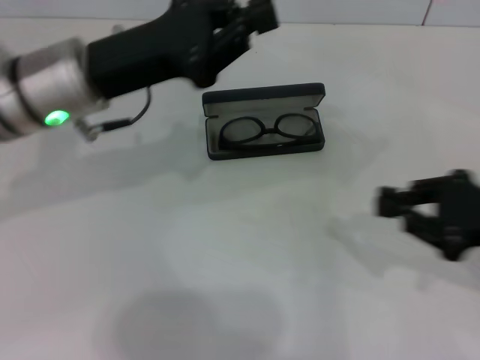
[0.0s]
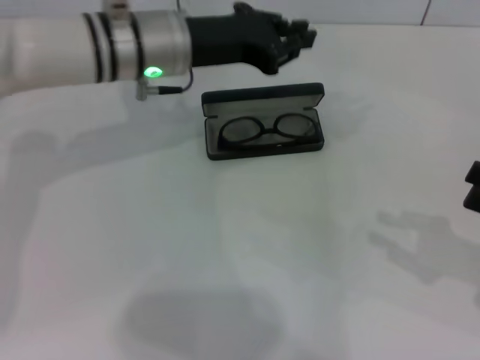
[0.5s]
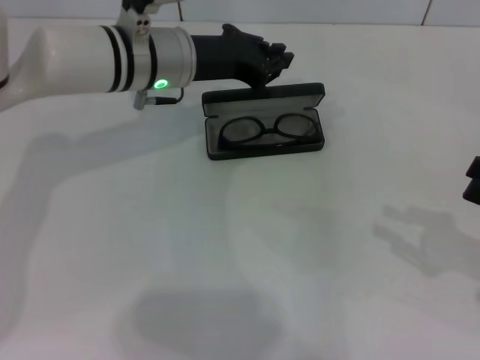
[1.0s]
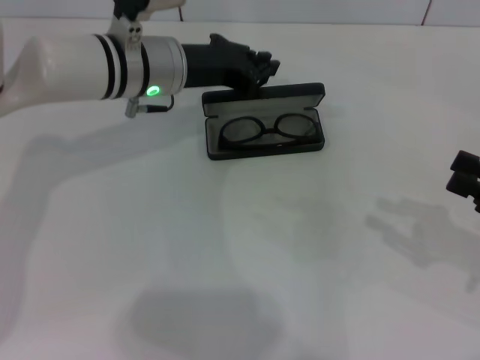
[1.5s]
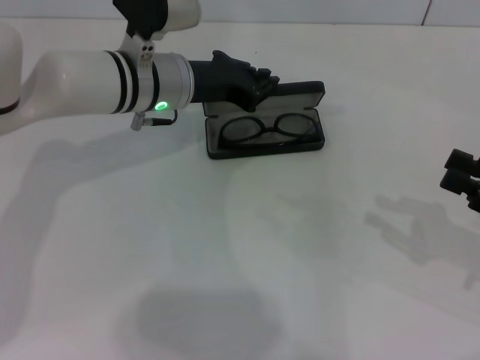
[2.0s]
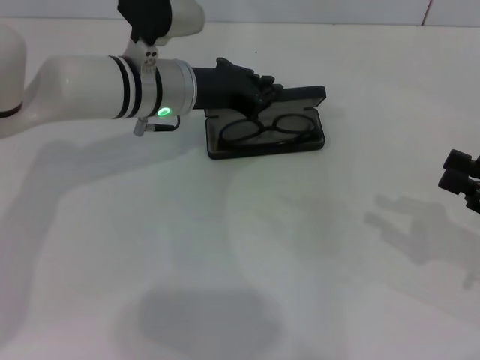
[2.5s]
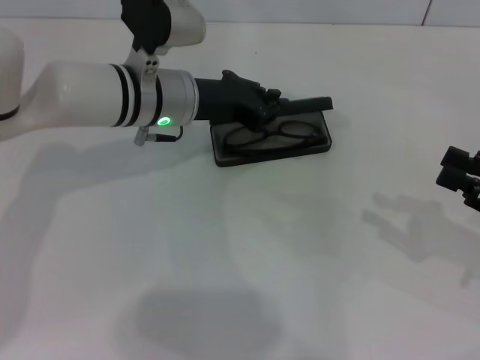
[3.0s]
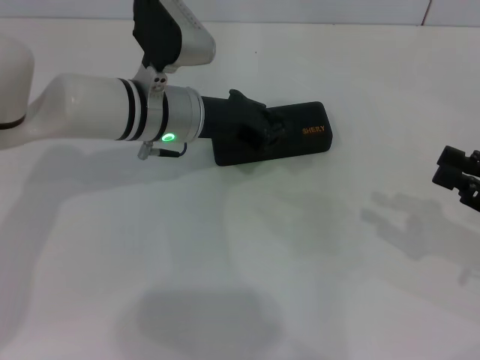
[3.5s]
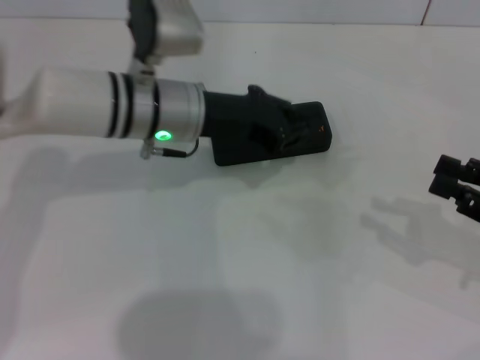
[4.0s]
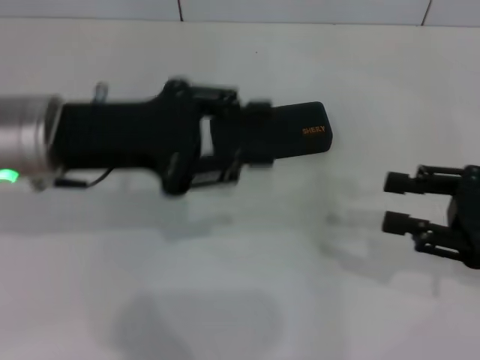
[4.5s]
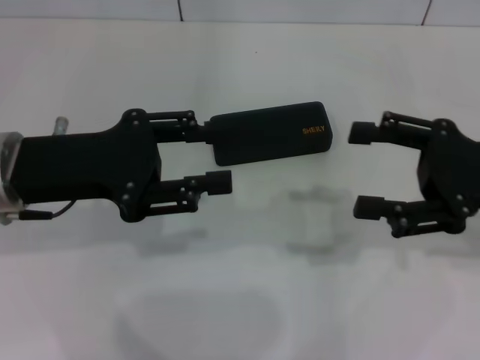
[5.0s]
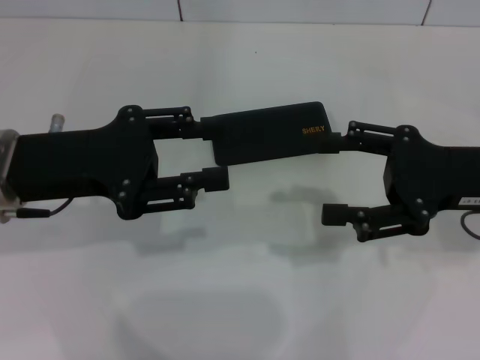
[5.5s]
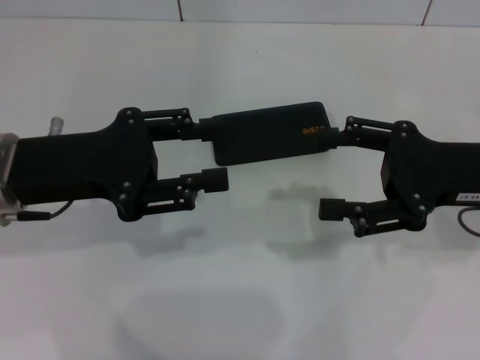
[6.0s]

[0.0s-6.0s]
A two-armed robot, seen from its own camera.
Step, 0.0s to 3.0s: Close the glasses case with your left hand.
0.0s to 2.0s: The right gripper goes some 5 cm to the right. The left gripper is displaced forward and to the right by approximately 10 cm.
2.0s to 4.0s: The grippers stay close to where they were, moving slightly.
4.0s to 6.0s: The left gripper heads to the left and backward, covering approximately 15 cm, and opens, while the right gripper is displaced to the left, forward and upward by some 10 cm, and opens up.

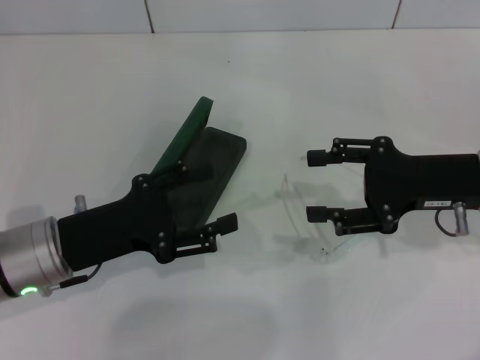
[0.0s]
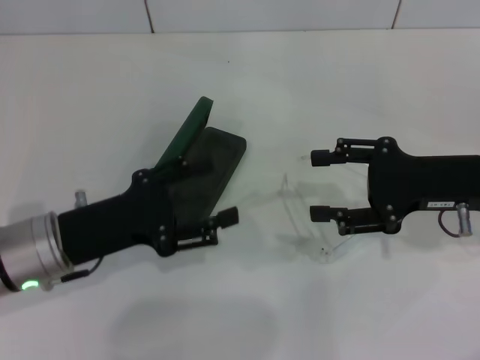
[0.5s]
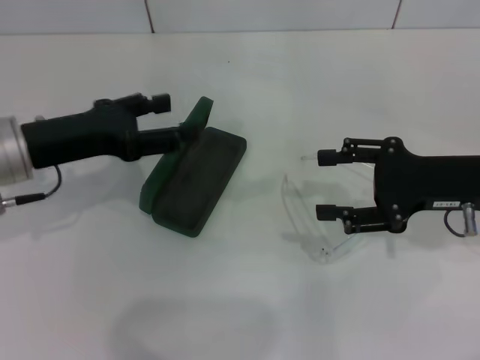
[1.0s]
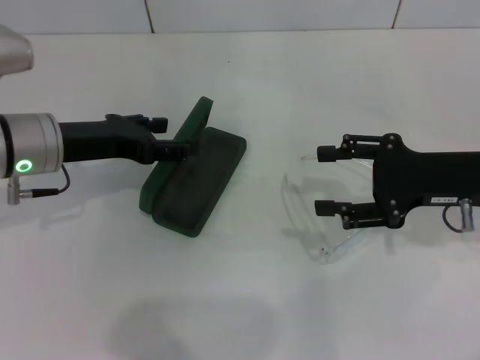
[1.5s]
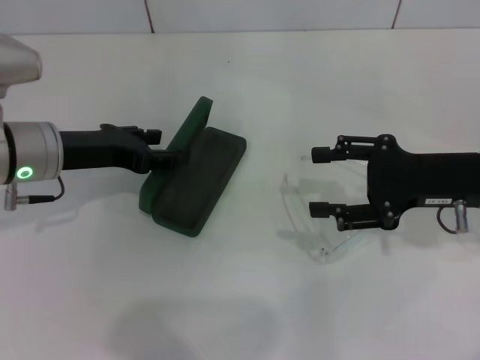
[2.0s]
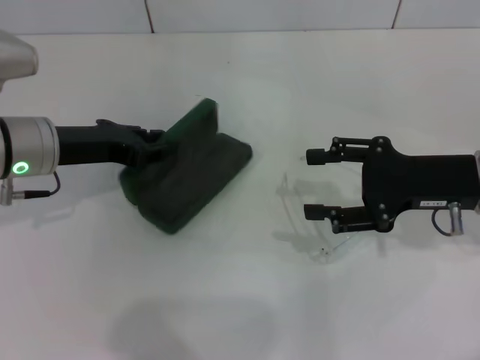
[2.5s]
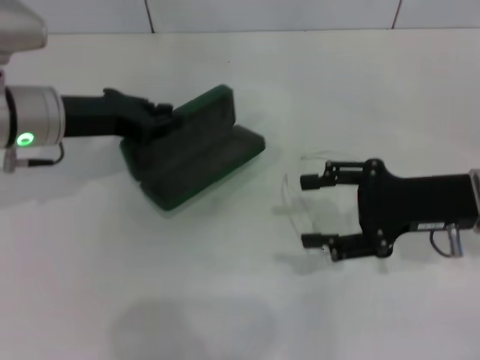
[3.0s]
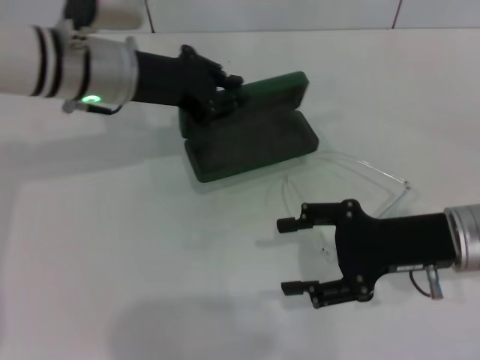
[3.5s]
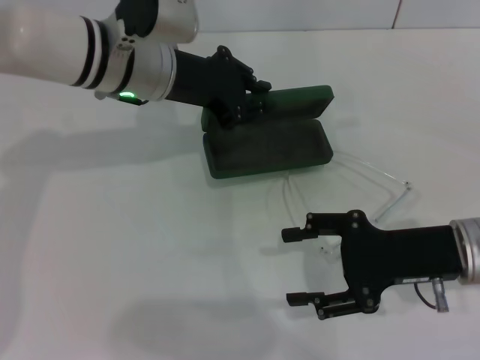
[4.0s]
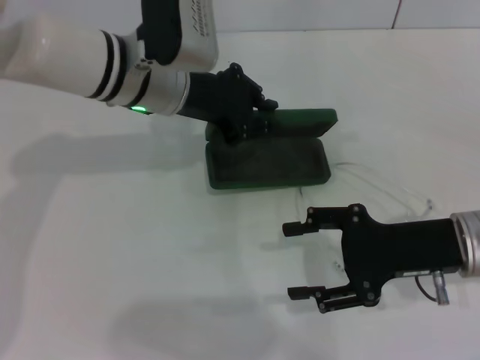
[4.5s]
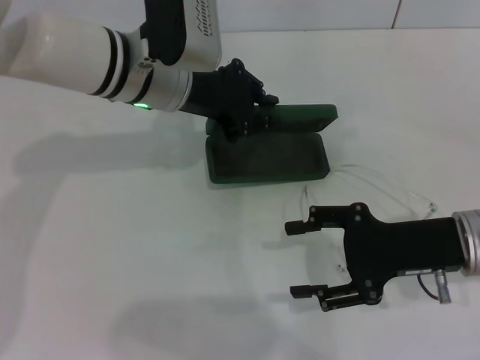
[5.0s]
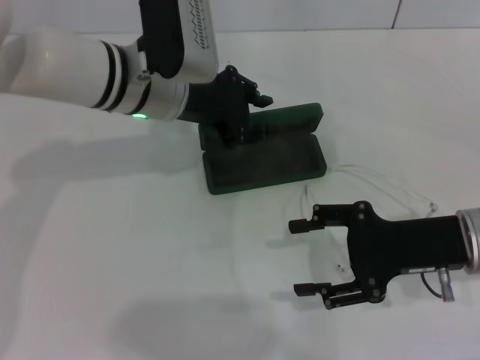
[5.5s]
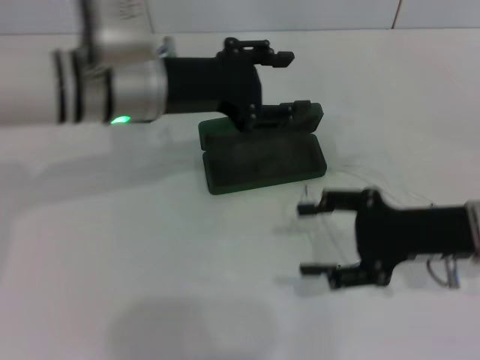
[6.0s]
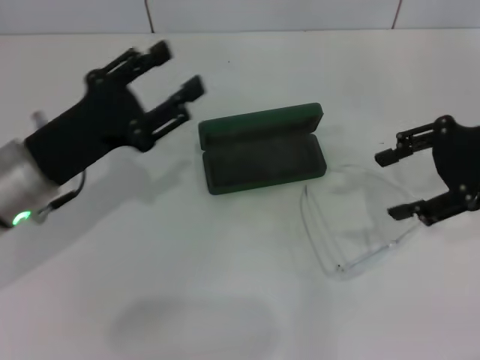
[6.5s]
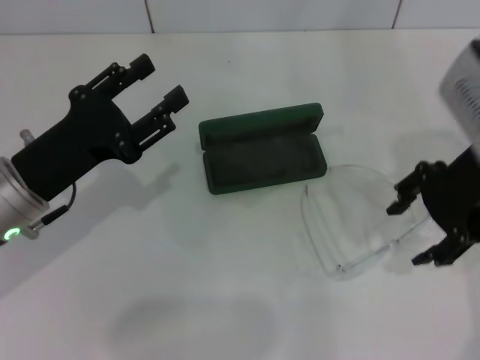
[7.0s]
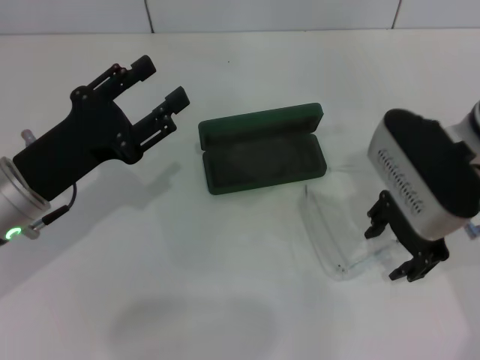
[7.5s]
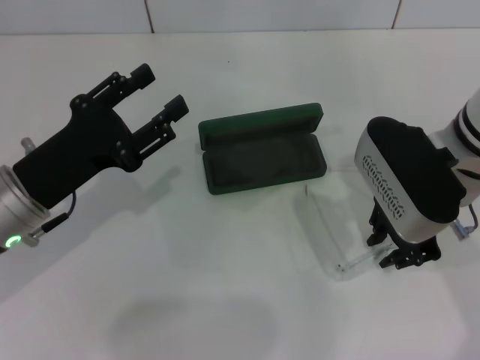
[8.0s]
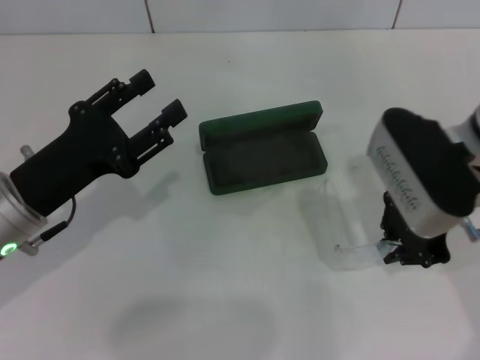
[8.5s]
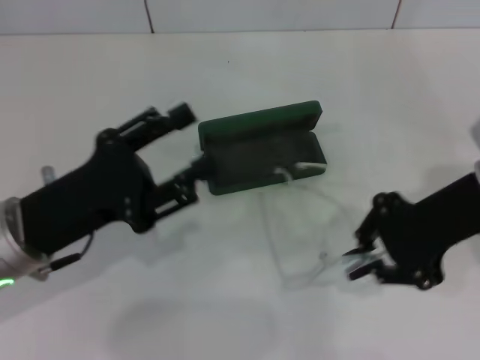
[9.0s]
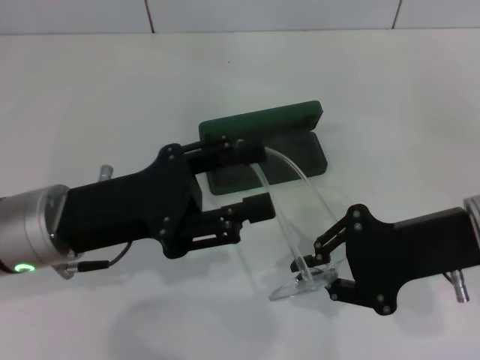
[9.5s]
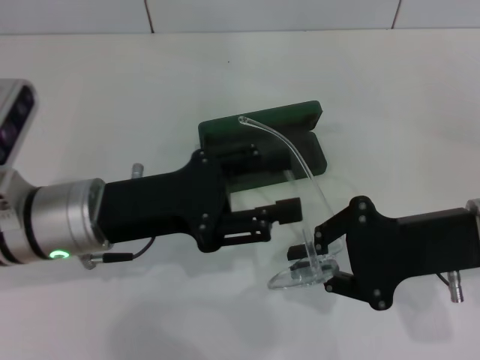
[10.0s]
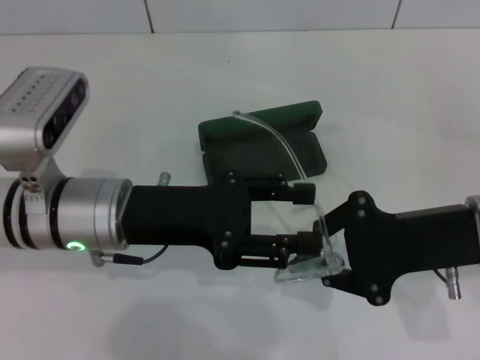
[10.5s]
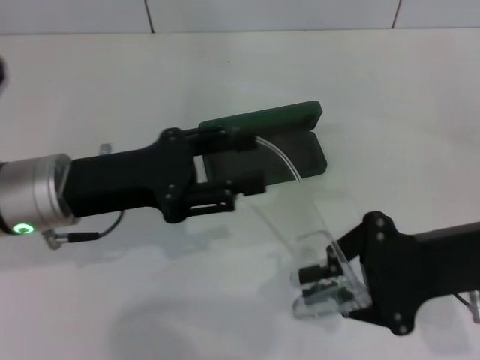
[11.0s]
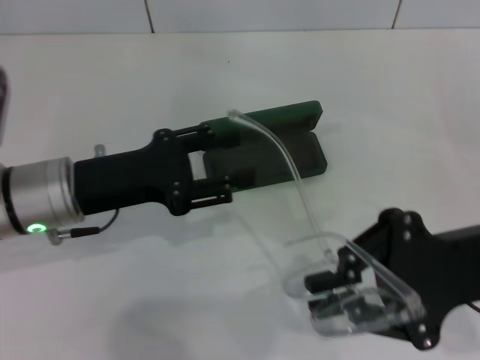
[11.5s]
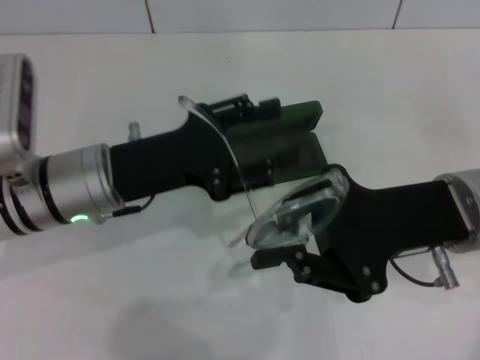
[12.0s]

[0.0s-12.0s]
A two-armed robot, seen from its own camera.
Step, 0.0s to 2.5s: Grab the glasses case with your left hand.
Step, 3.0s to 5.5s: Place the glasses case in the center of the table with your left hand.
Step, 6.0s to 8.0s: Grab the eyeglass frame with your right hand.
0.0s to 2.0s: The left gripper travels forward by approximately 10 cm.
2.0s to 4.0s: The right gripper moves approximately 5 cm. The left gripper is displaced to the right, forward and upward by approximately 15 cm, and closes its fingers.
4.0s to 6.0s: The left gripper opens up.
6.0s to 8.0s: The left gripper travels to the left, backward and downward by some 15 cm, while the right gripper goes roughly 10 cm to the left and upward, and closes its fingers.
8.0s to 10.0s: The left gripper moves to the right, roughly 5 cm. The right gripper travels backward and to the right by roughly 10 cm, and closes up.

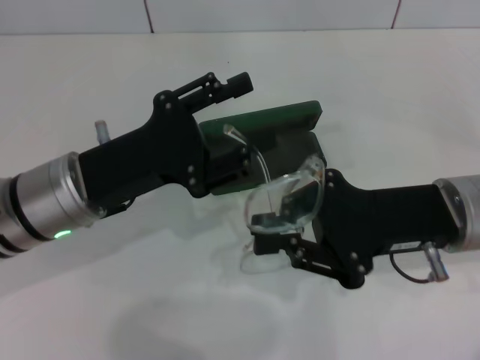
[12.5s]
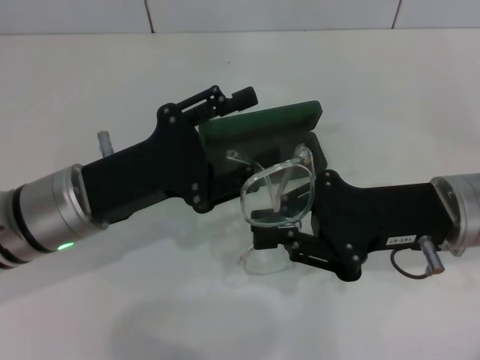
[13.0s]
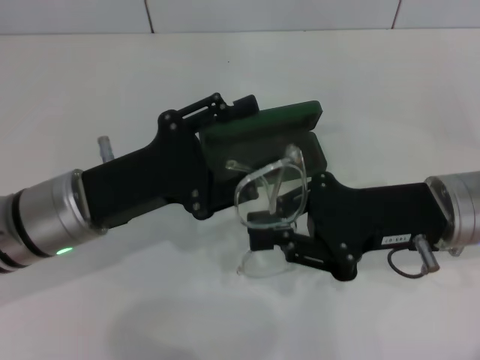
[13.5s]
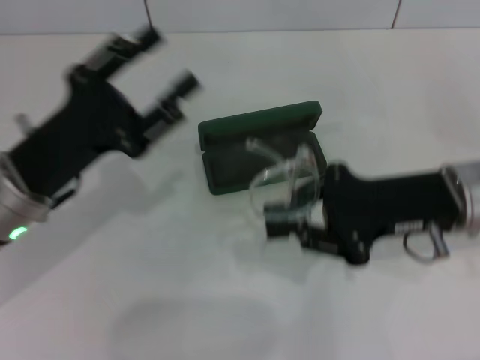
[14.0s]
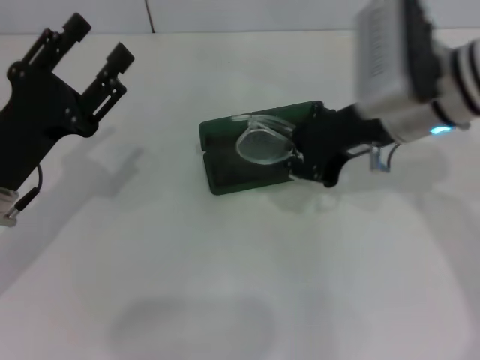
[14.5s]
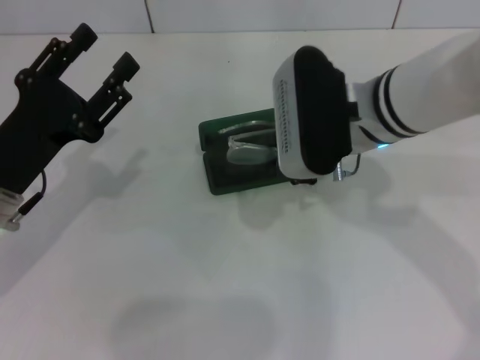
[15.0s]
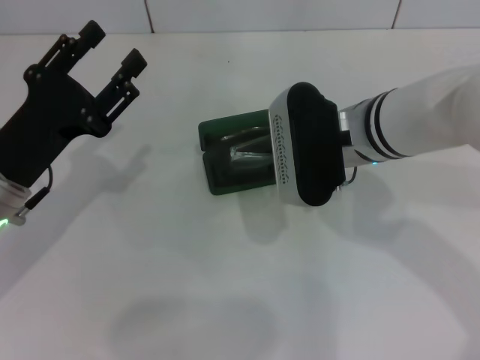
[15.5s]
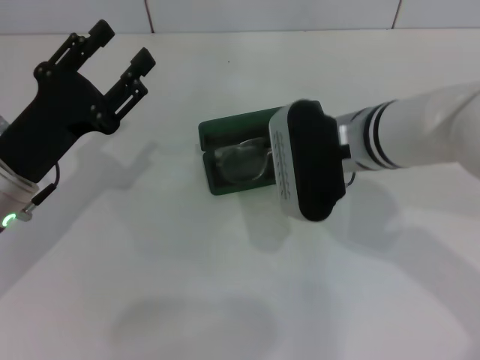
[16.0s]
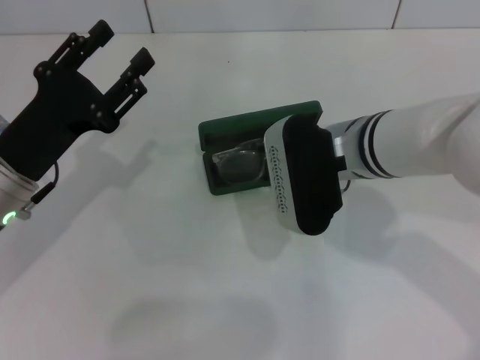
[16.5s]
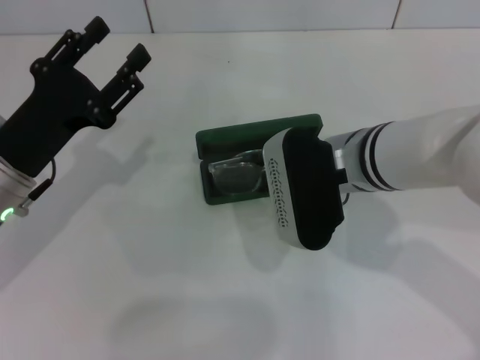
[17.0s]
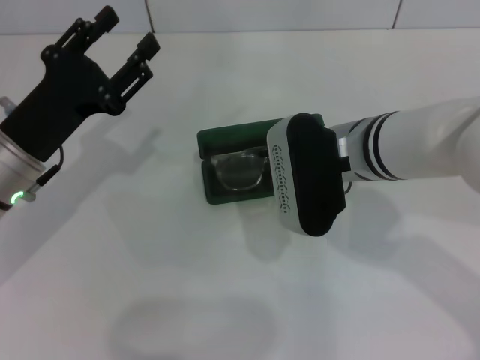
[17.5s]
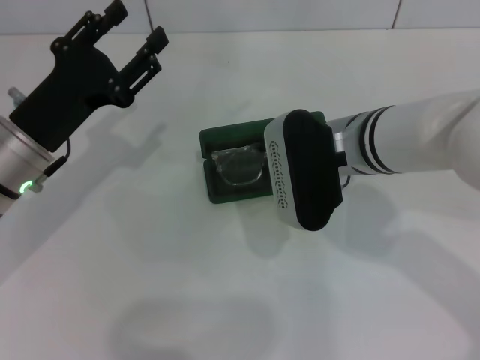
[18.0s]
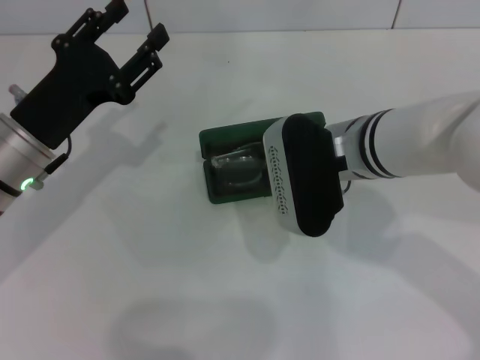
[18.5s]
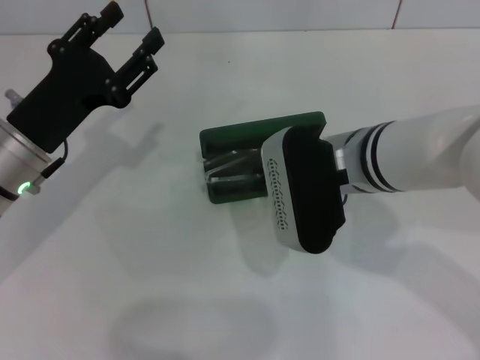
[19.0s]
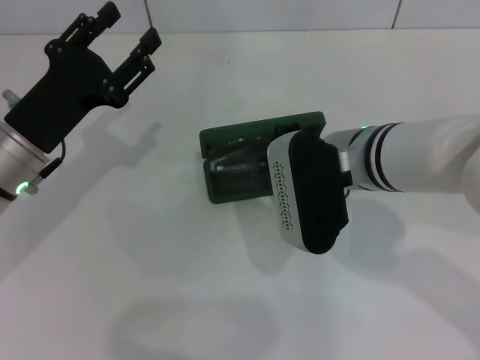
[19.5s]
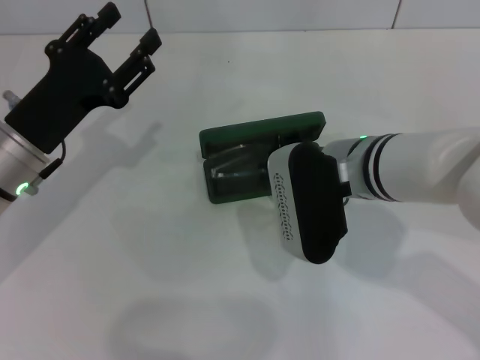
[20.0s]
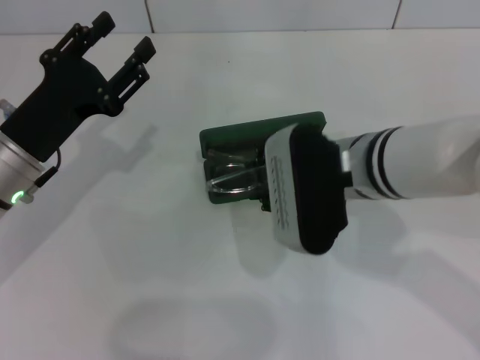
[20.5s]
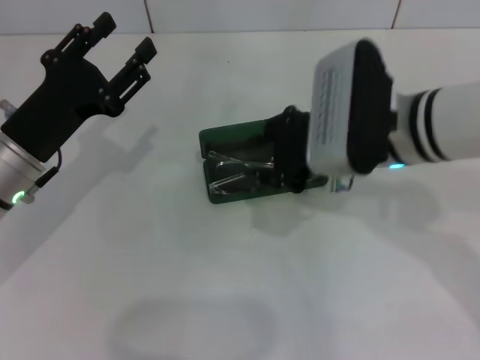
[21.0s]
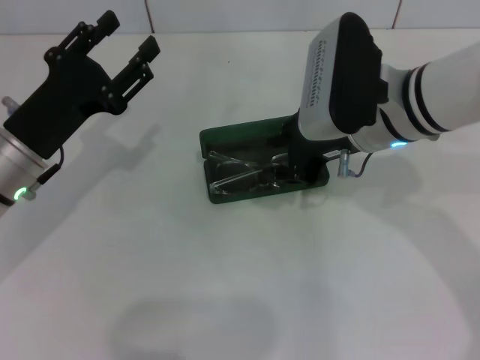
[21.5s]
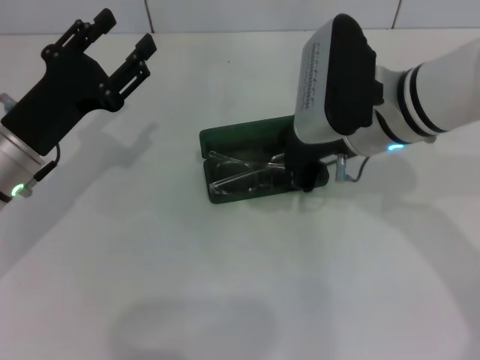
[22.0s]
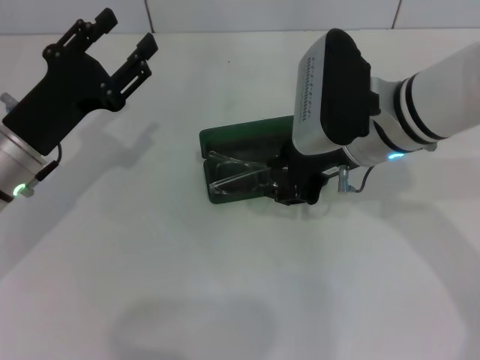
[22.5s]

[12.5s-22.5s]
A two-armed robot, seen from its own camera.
Step, 13.5s to 16.0s: Put the glasses into the case with your right hand.
12.5s to 14.5s: The left gripper travels to the left by approximately 5 cm. Meanwhile the right gripper heads forward and upward, covering about 10 cm.
14.5s to 16.5s: The right gripper is displaced downward and to the left by approximately 10 cm.
16.5s to 20.5s: The grippers move only a little.
